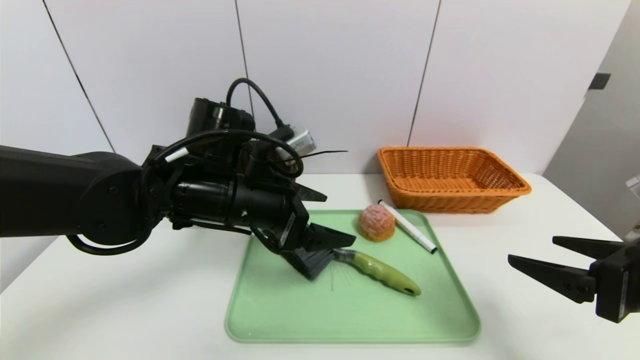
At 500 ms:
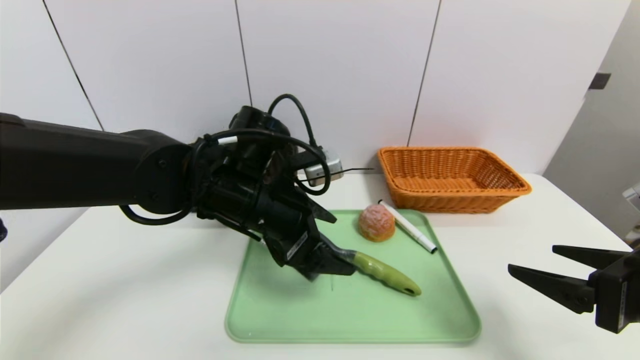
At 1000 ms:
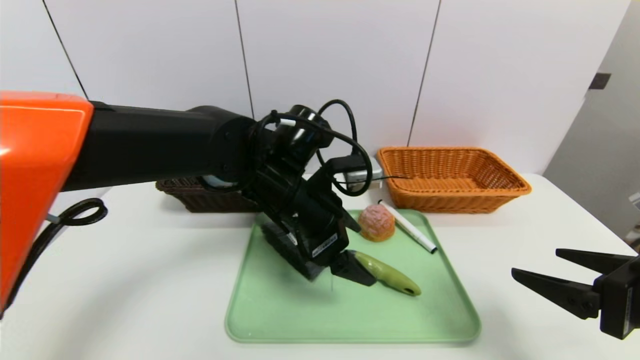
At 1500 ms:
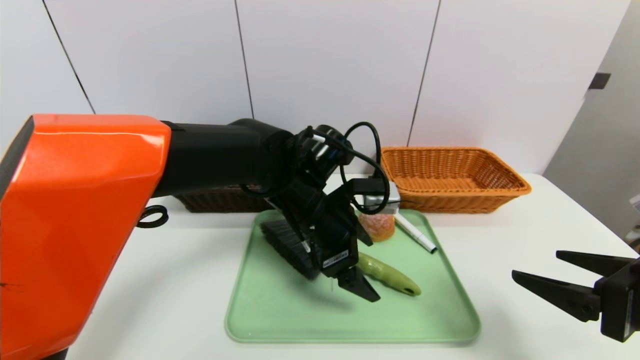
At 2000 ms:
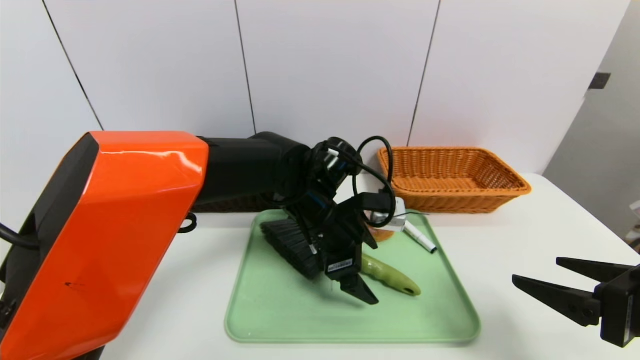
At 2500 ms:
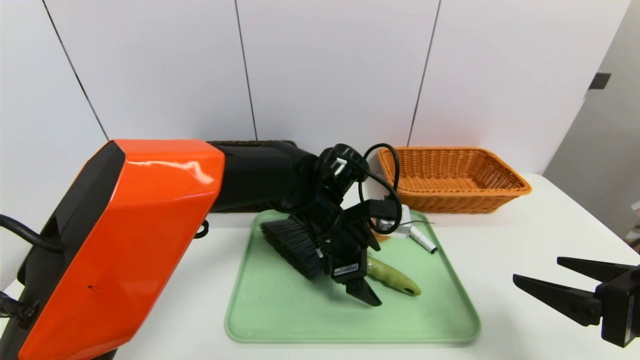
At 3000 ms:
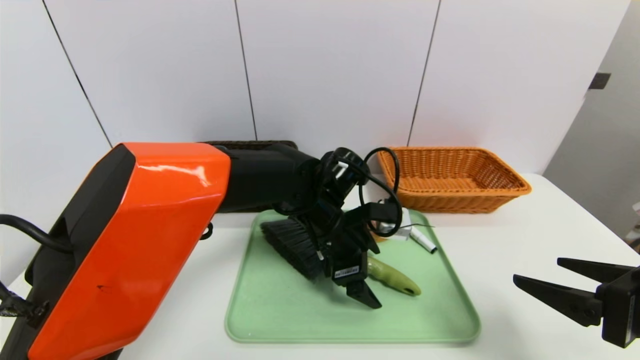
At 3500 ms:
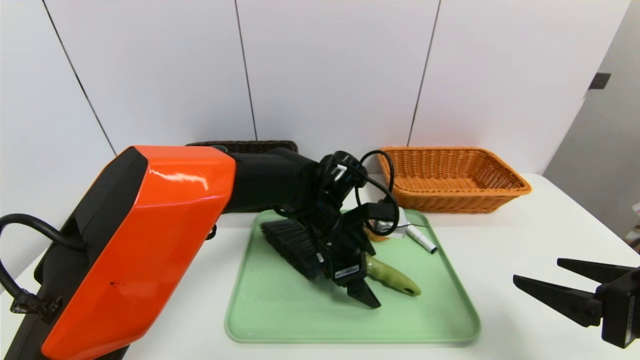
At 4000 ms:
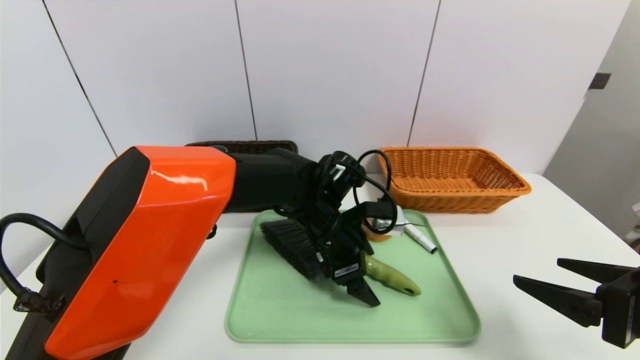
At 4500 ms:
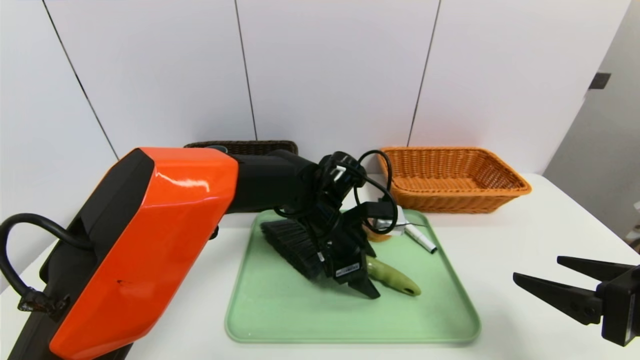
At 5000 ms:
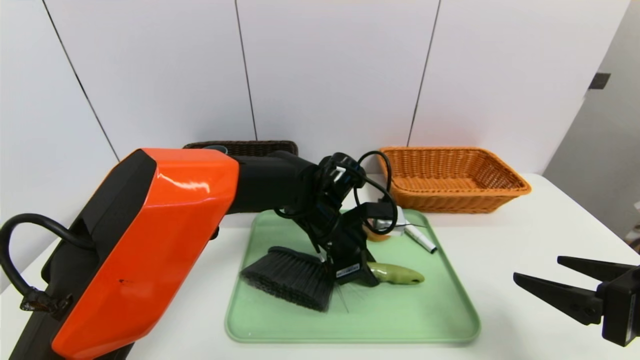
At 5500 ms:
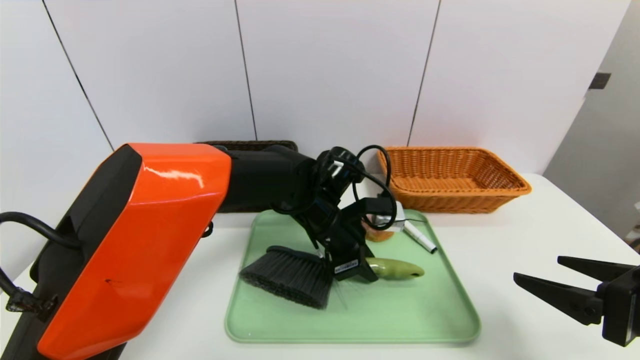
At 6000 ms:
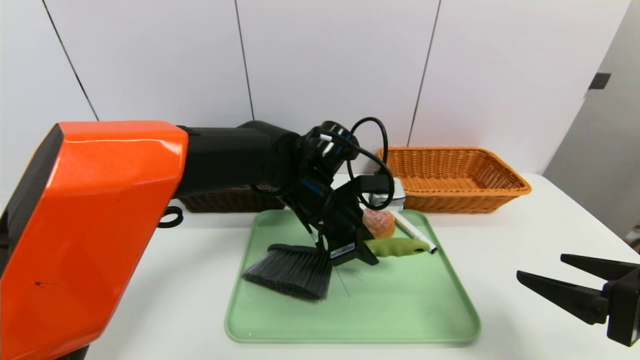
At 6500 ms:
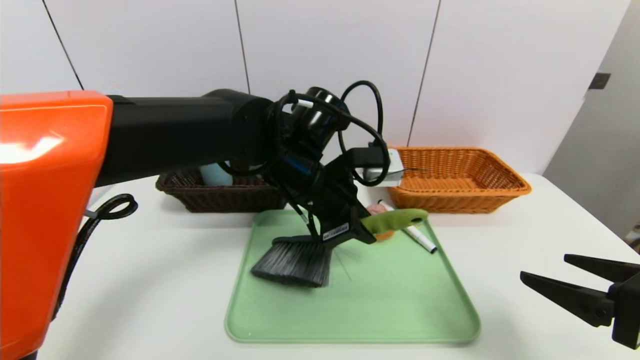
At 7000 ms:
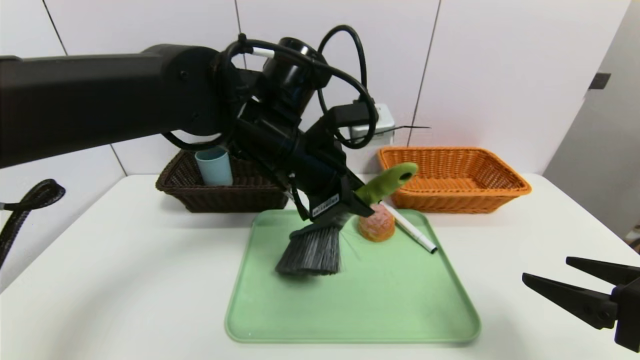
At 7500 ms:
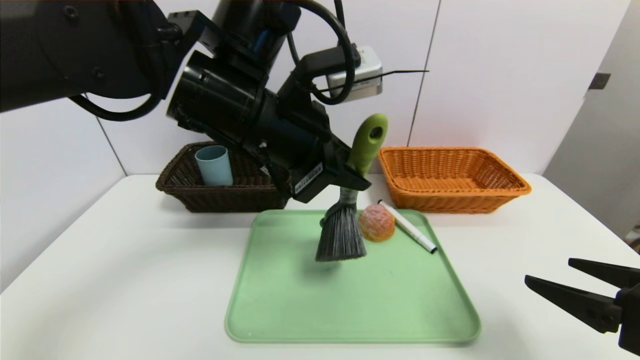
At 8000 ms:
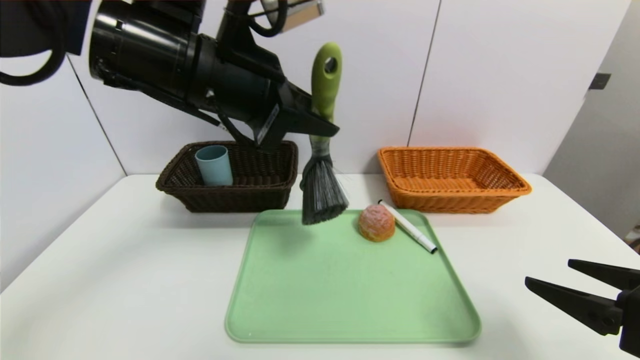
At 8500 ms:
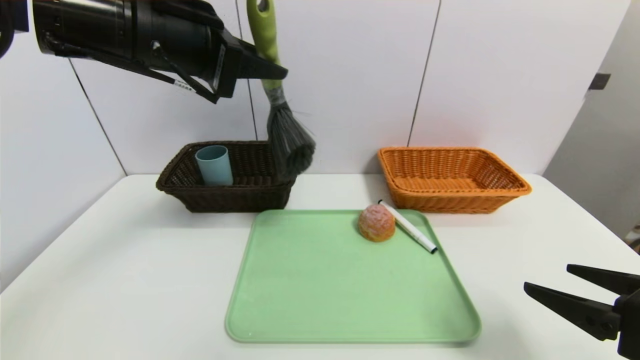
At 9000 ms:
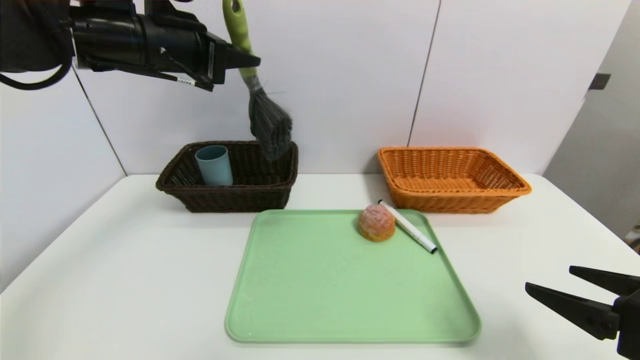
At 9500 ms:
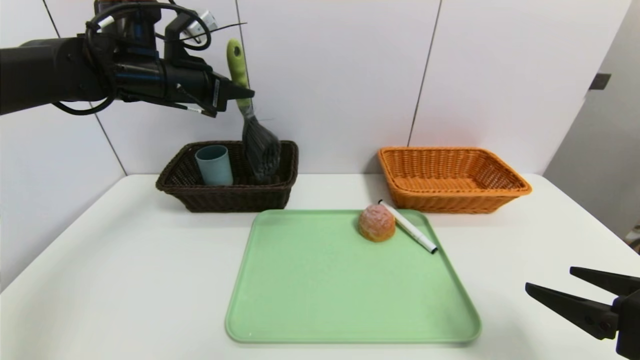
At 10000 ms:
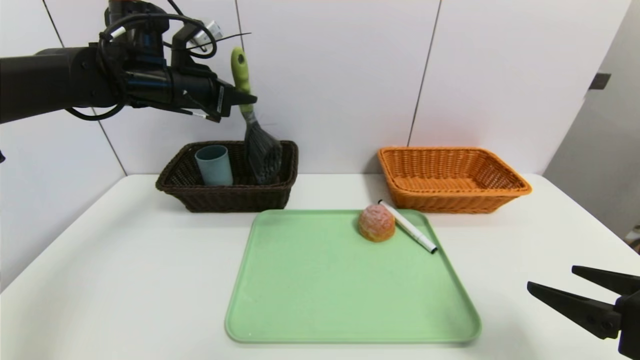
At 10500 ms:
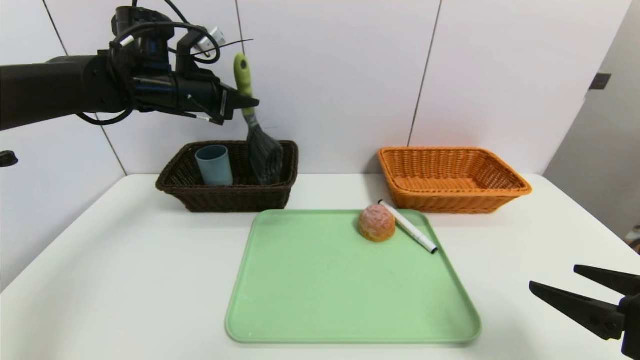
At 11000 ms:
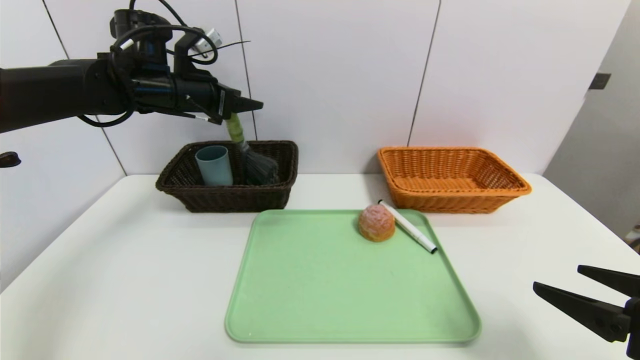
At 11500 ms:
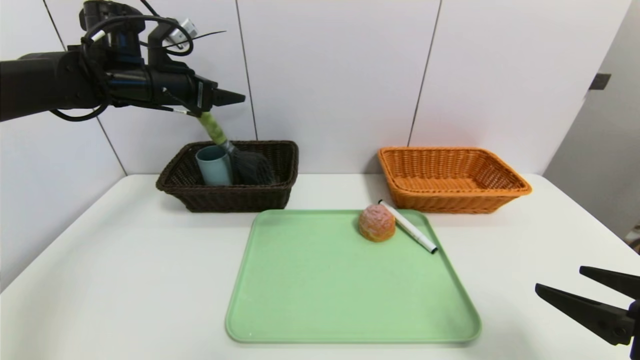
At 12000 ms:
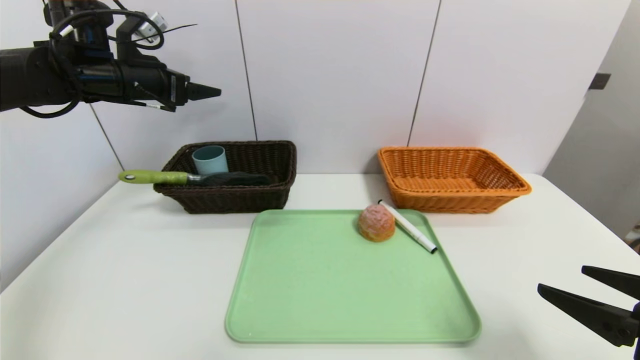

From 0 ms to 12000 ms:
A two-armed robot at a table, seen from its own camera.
Task of the whole recording: place the food in the right basket with the right gripper, and place the non food items in the left basket with the left gripper.
Step, from 0 ms to 11500 ms: Grasp the brush and put it in the left basket.
From 0 ms to 2000 ms: The left gripper goes roughly 10 cm to the right and downward.
From 2000 ms to 4000 ms: The grippers stay close to where they were, moving slightly.
From 4000 ms to 6000 ms: The left gripper changes place by about 5 cm, and closes.
From 6000 ms to 8000 ms: The left gripper moves upward and to the left, some 20 cm.
From 8000 ms to 10000 ms: The left gripper travels forward and to the left by roughly 20 cm.
From 10000 ms to 12000 ms: The left gripper heads to the left, covering some 10 cm, and opens its fingers.

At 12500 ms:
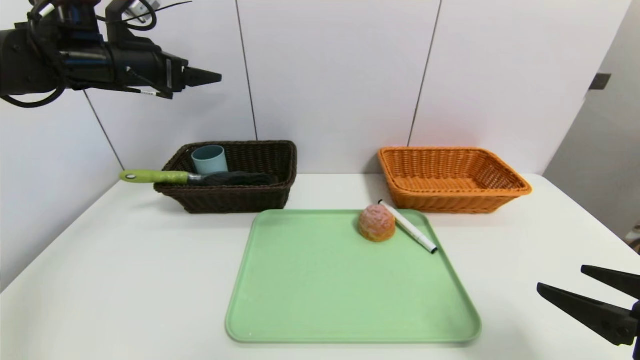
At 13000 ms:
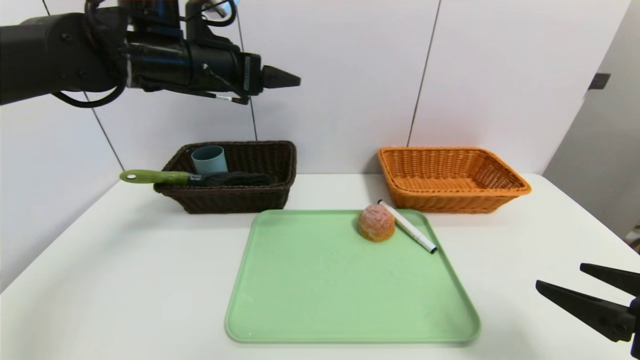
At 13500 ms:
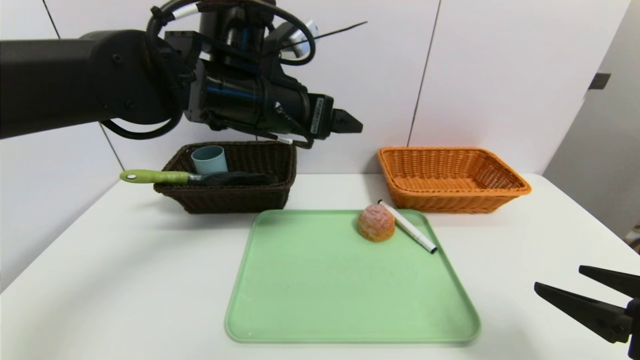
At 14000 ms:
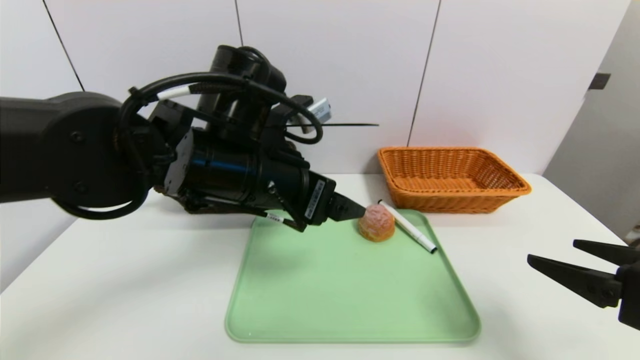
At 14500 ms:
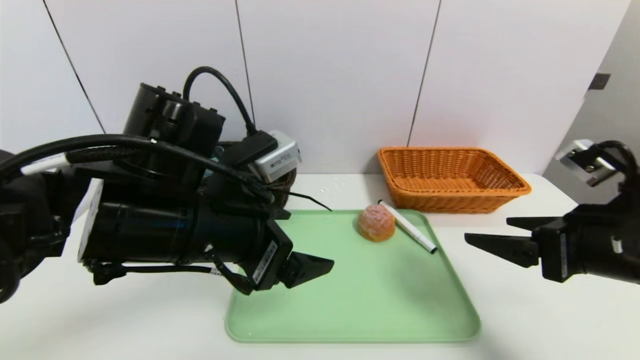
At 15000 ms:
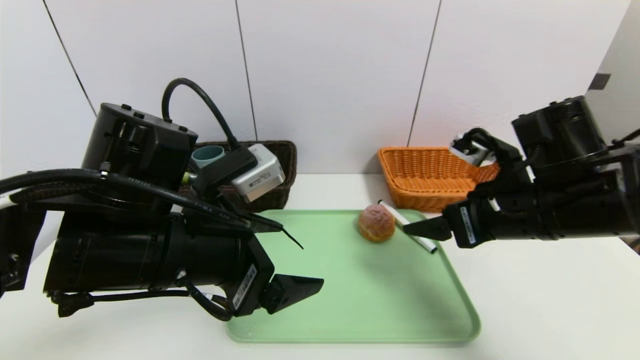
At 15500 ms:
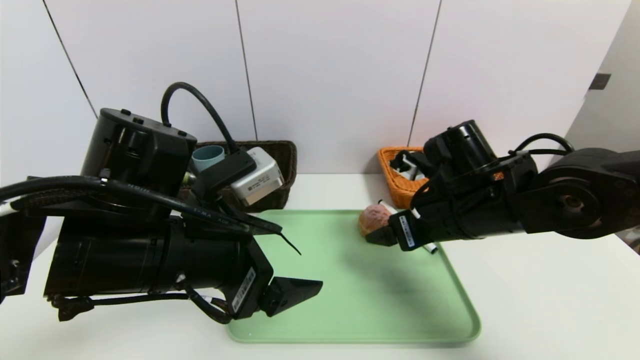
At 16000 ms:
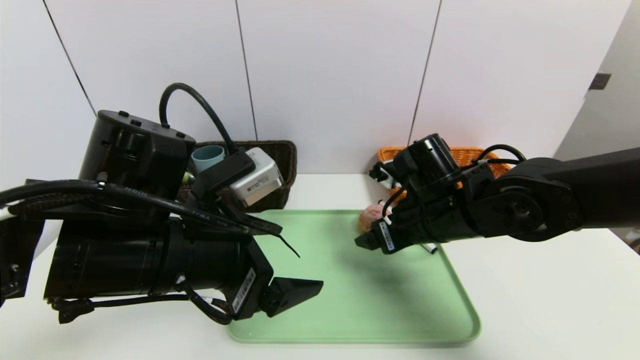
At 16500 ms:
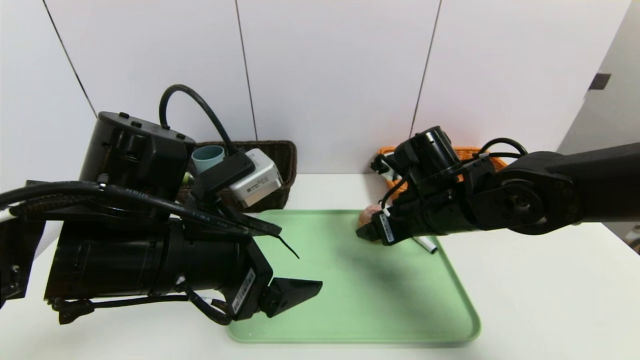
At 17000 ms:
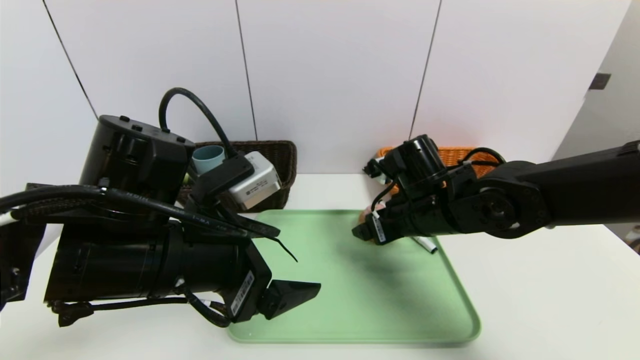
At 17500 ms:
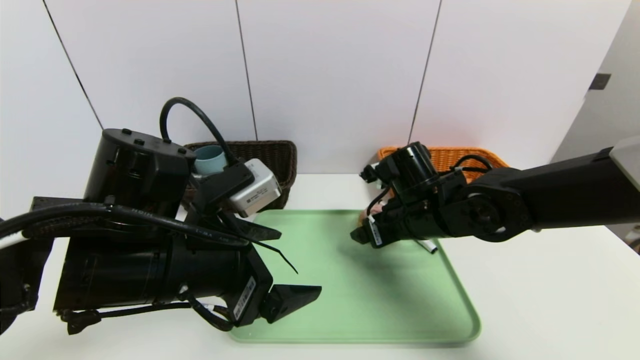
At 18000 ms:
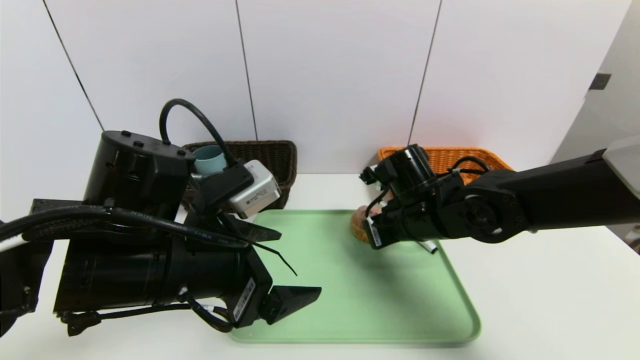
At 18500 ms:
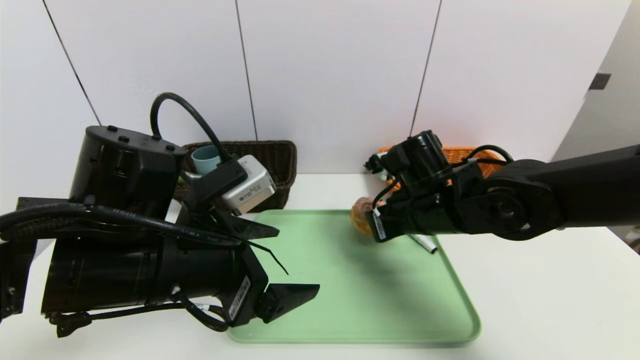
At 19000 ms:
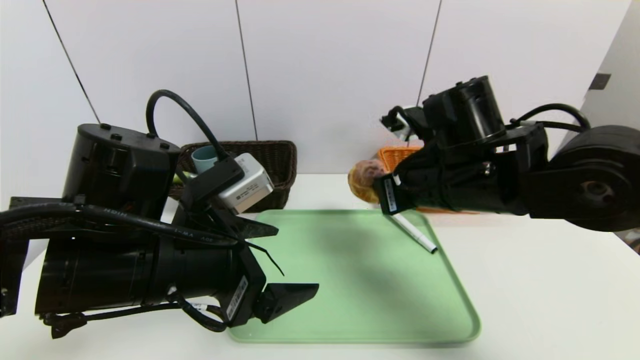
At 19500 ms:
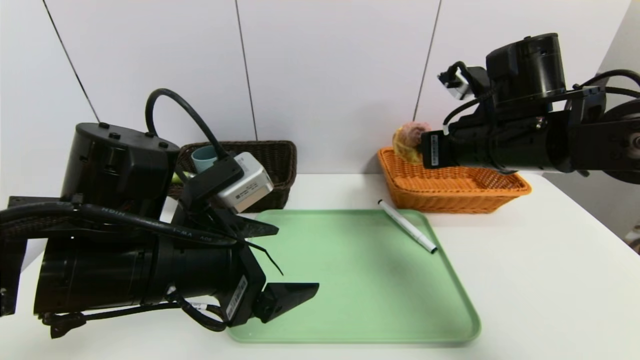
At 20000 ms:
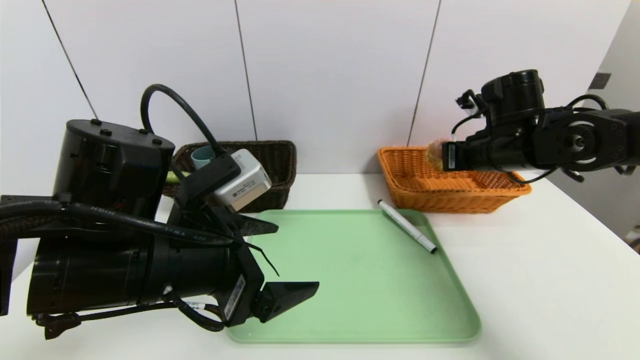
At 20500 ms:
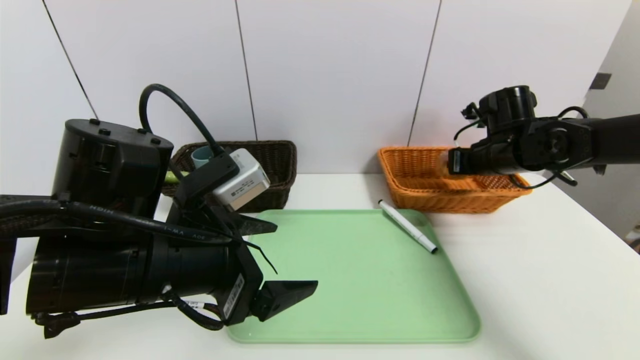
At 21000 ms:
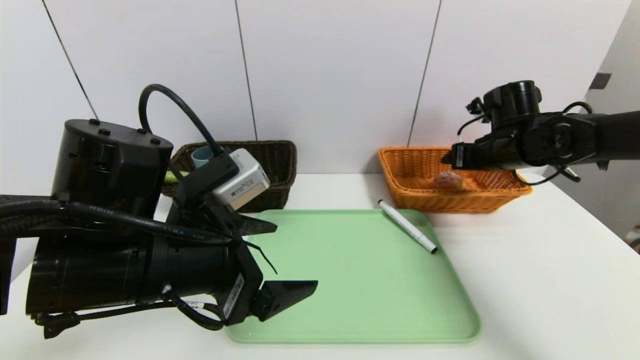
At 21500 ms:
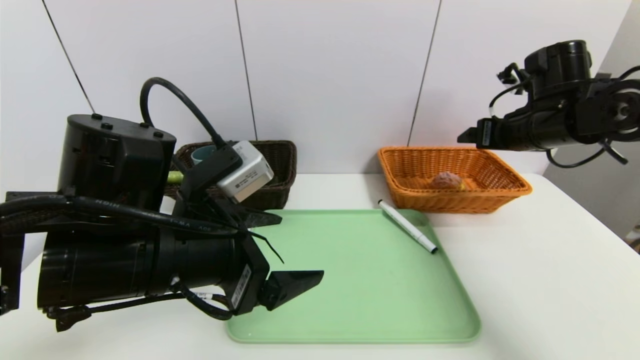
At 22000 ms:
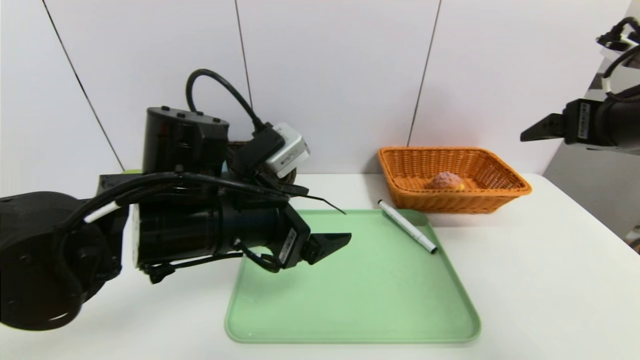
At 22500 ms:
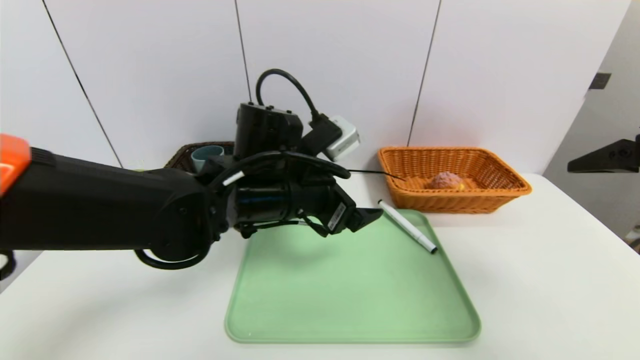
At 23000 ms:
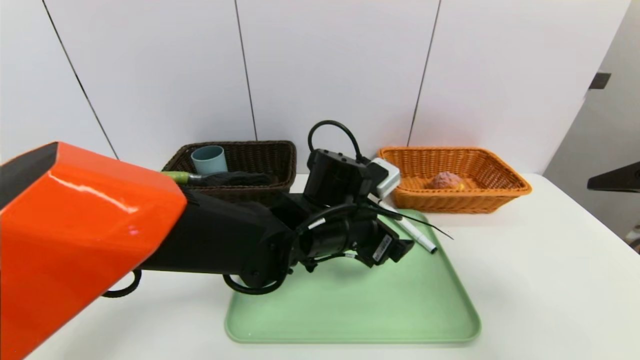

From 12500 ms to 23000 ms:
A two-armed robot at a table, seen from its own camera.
Task of the whole recording: place the food in the right basket with the right gripper, and place the non food items in the left basket with the left gripper.
Step, from 12500 ms to 21000 ms: Grasp the round bread and put it in the right basket.
From 12500 ms to 14500 ms: The left gripper travels backward, to the right and downward by approximately 25 cm; the right gripper is displaced forward by about 10 cm.
From 14500 ms to 16500 ms: The right gripper heads to the left and forward, covering roughly 20 cm.
From 16500 ms to 19000 ms: The right gripper heads upward, covering roughly 5 cm, and closes up.
From 19000 ms to 21000 ms: The right gripper goes some 20 cm to the right and forward, and opens up.
From 21000 ms to 23000 ms: The right gripper goes some 30 cm backward and upward, while the left gripper shifts approximately 20 cm to the right, forward and downward.
